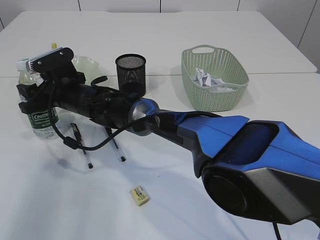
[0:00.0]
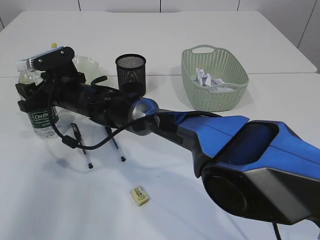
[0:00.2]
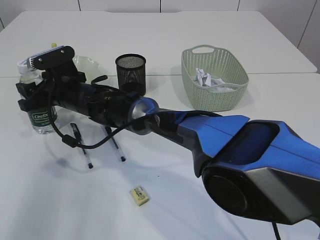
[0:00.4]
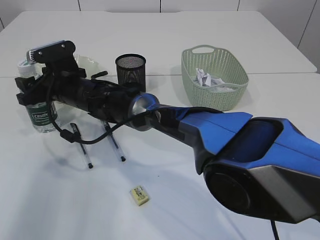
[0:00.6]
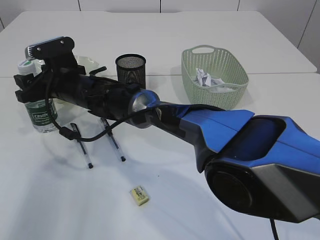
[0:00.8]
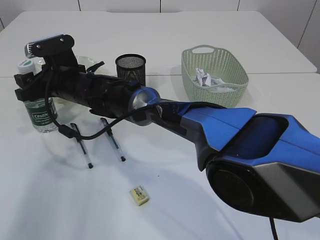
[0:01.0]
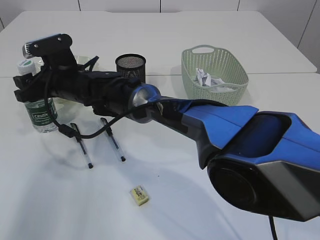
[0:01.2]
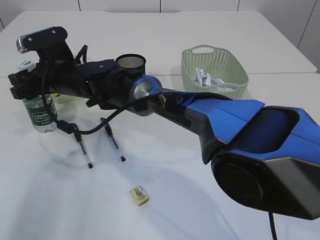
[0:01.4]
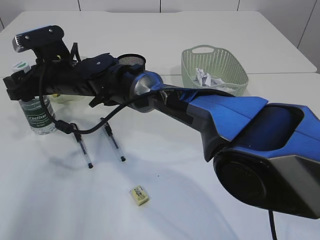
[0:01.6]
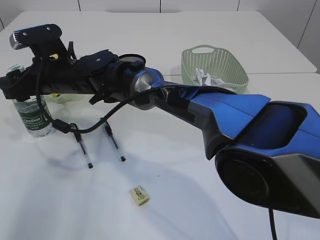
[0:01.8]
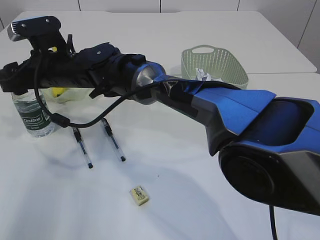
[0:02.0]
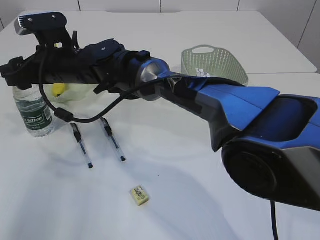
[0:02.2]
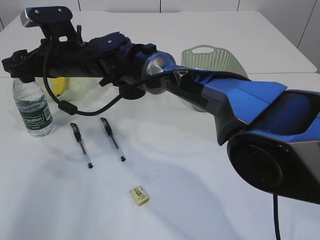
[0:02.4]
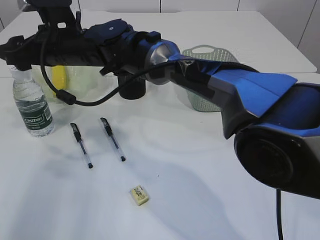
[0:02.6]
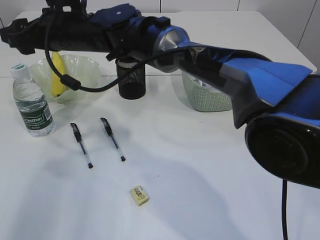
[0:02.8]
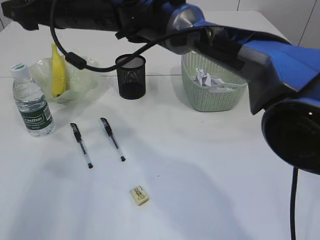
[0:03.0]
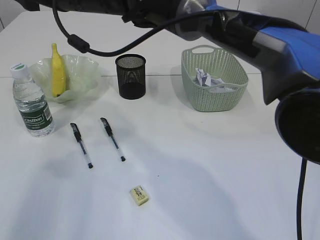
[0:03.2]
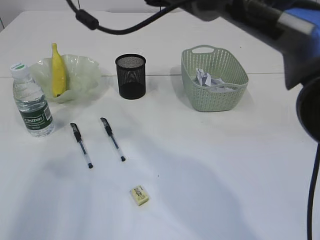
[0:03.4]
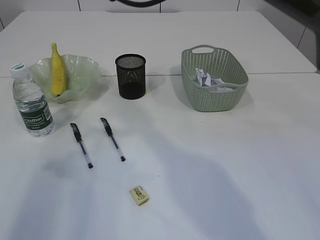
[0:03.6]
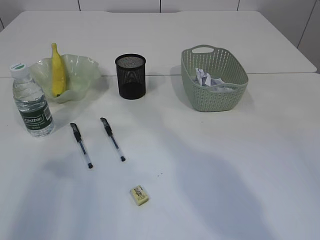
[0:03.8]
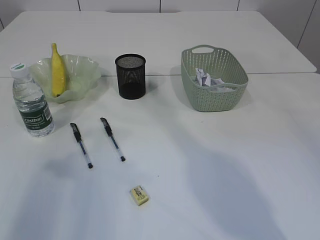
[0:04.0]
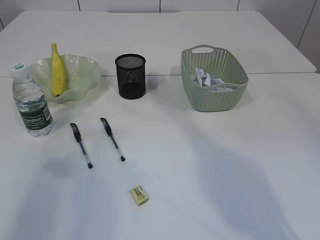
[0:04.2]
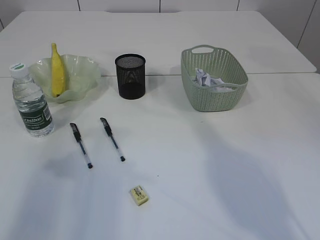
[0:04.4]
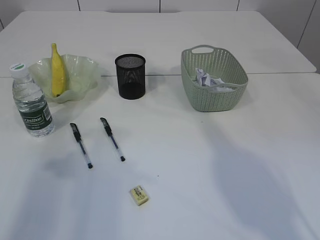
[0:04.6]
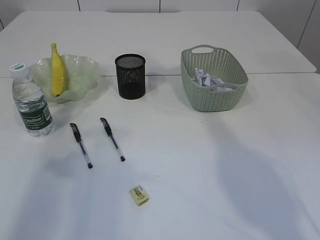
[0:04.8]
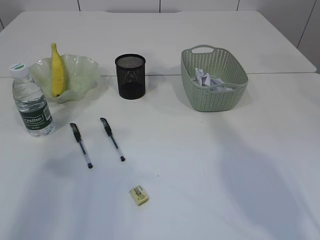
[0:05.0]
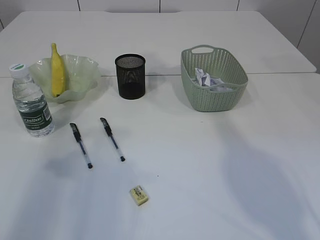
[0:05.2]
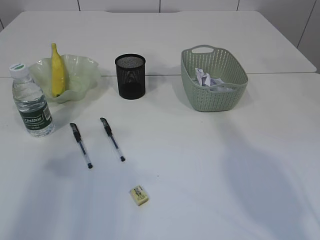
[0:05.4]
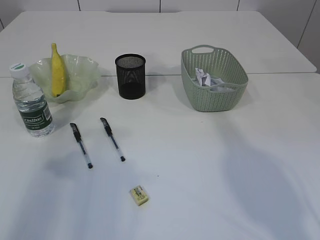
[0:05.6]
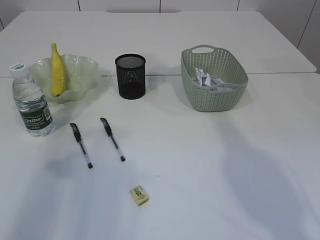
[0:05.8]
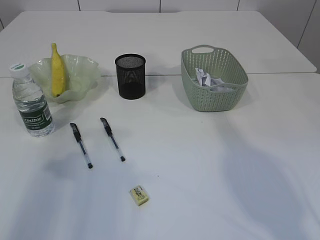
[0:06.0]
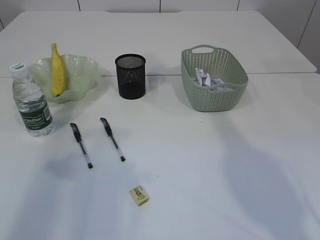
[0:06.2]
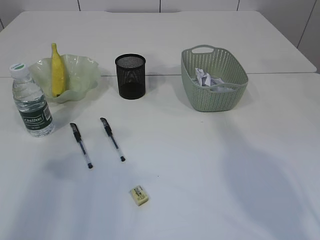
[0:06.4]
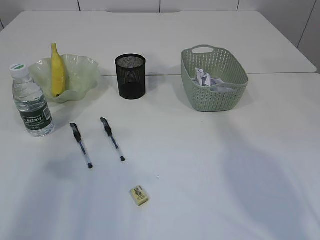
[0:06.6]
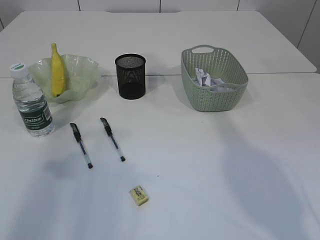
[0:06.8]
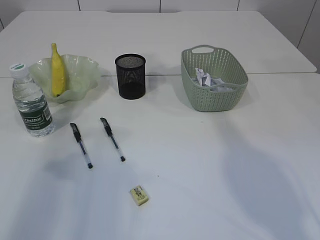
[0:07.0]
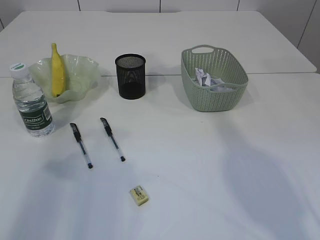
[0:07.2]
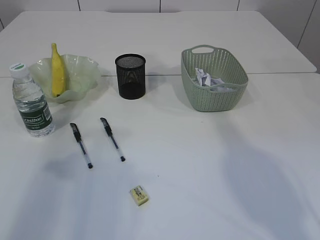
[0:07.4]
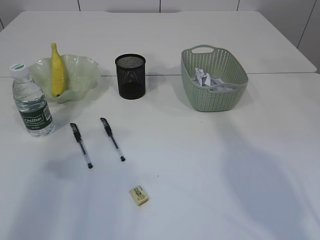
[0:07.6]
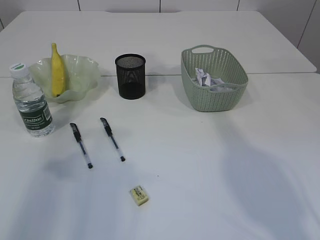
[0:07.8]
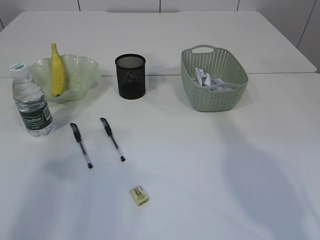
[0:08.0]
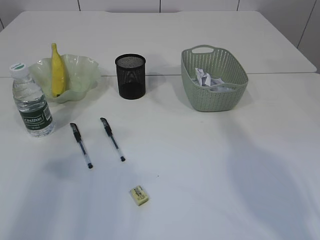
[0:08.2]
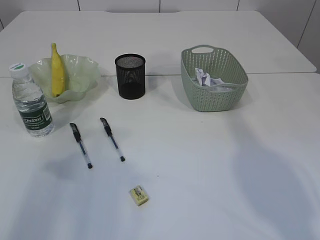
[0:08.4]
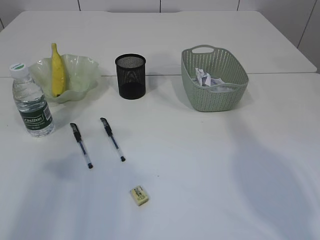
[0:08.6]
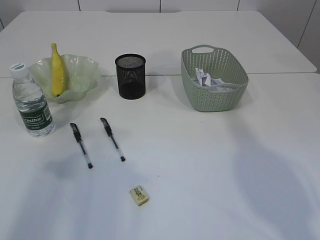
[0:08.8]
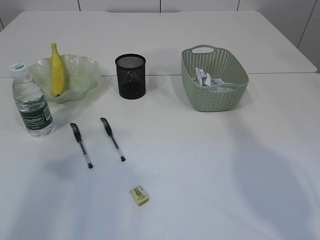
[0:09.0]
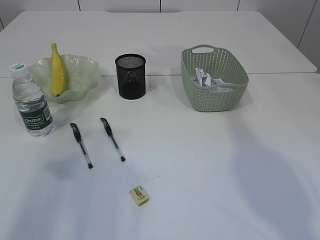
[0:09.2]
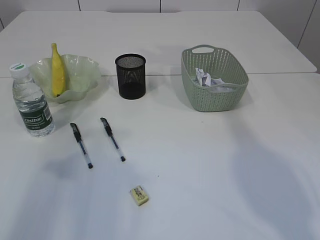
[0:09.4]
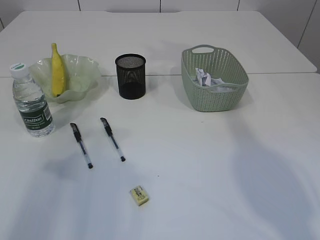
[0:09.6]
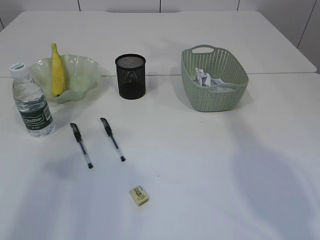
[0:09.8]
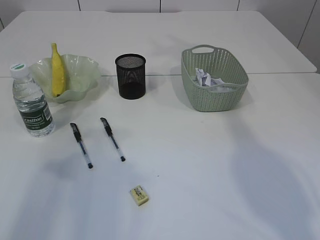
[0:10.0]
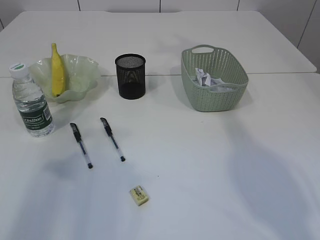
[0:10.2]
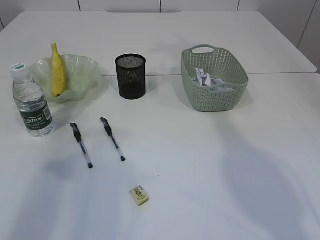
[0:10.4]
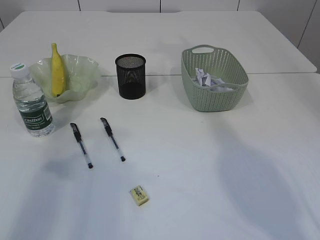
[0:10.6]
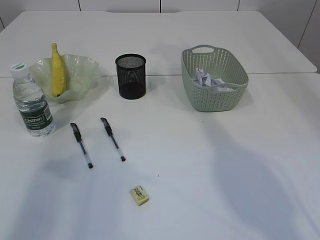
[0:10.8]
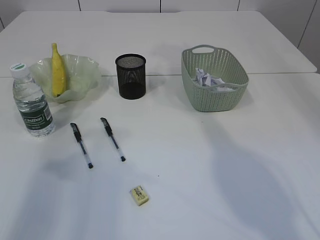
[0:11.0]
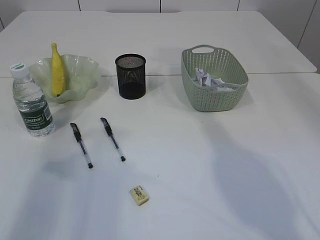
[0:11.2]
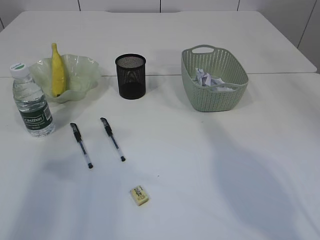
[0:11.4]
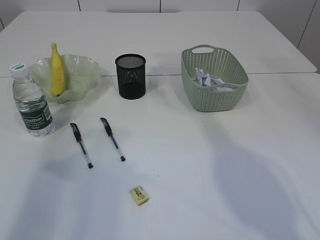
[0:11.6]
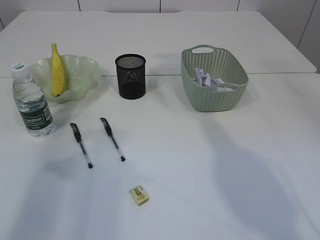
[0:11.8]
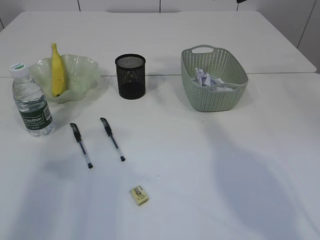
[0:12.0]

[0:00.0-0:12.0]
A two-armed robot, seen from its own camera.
Step, 0:00.0 to 0:02.8: Place the bottle.
0:01.6 to 0:03.0: The right gripper goes approximately 15 cm upward and to the right.
0:03.0 to 0:04.4: The right gripper shifts about 25 cm to the right and upward.
0:06.0 to 0:07.6: The two grippers keep their place.

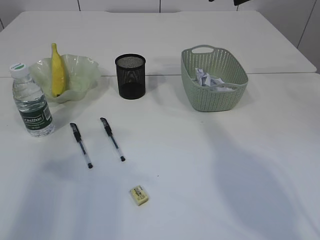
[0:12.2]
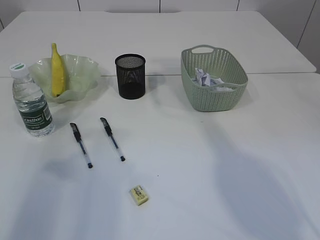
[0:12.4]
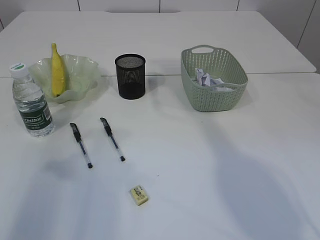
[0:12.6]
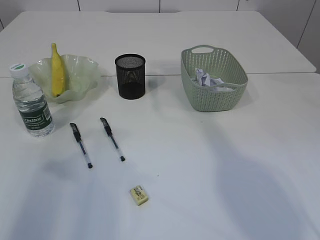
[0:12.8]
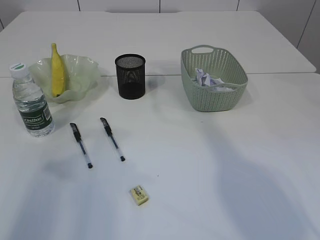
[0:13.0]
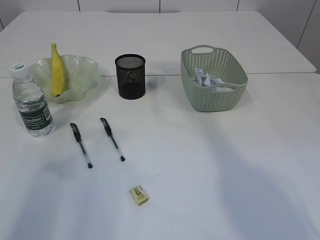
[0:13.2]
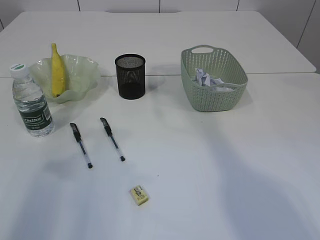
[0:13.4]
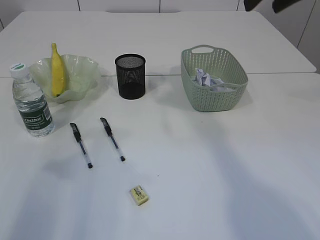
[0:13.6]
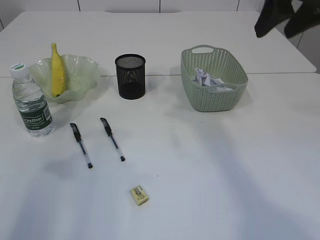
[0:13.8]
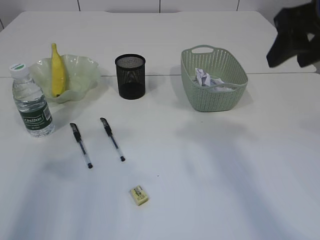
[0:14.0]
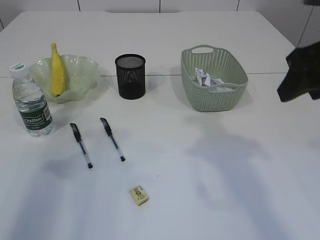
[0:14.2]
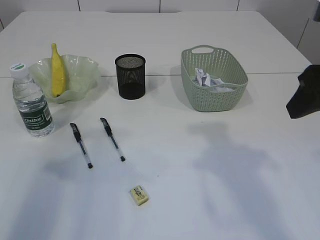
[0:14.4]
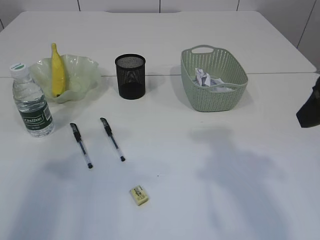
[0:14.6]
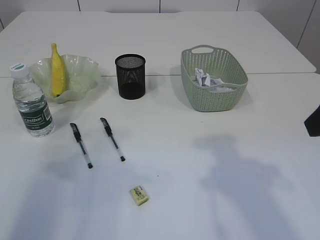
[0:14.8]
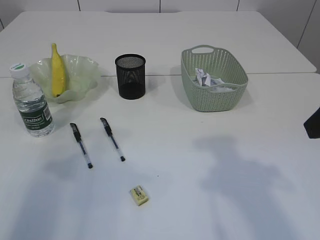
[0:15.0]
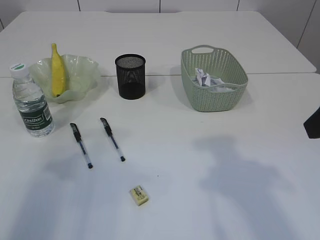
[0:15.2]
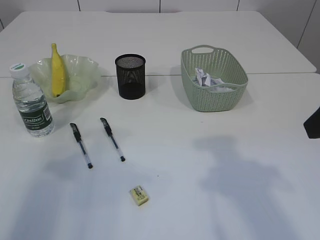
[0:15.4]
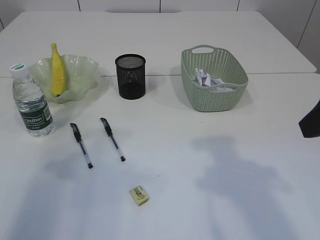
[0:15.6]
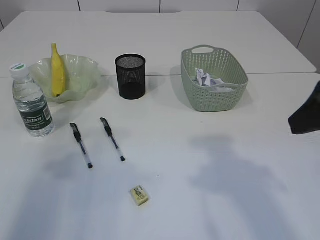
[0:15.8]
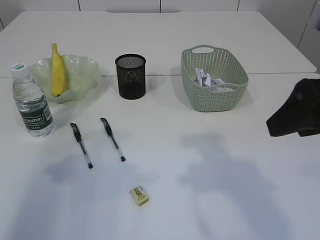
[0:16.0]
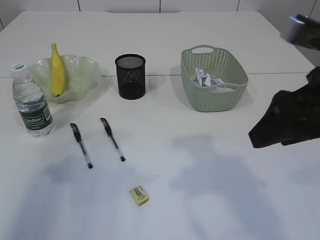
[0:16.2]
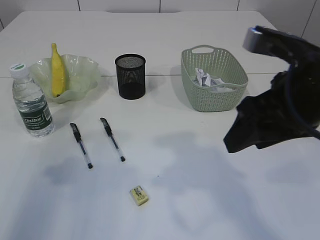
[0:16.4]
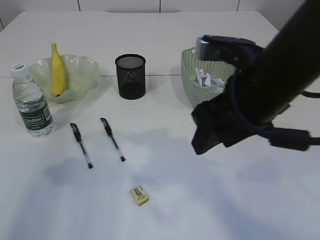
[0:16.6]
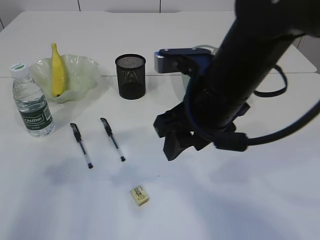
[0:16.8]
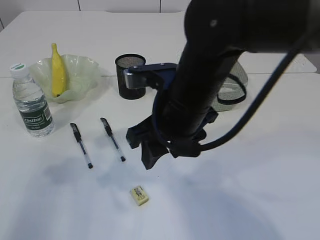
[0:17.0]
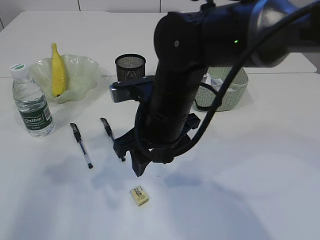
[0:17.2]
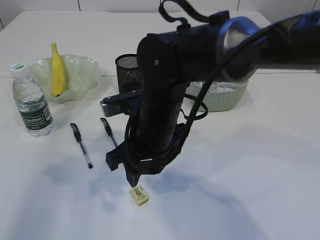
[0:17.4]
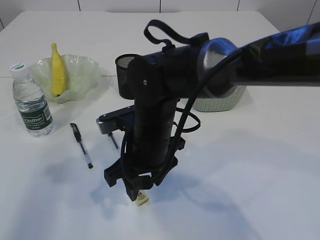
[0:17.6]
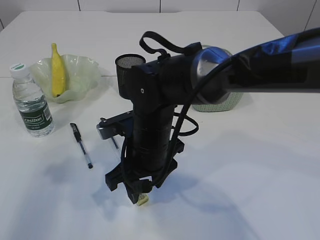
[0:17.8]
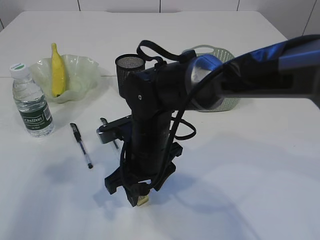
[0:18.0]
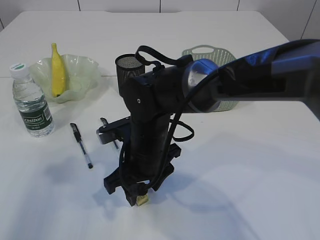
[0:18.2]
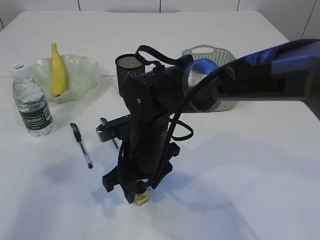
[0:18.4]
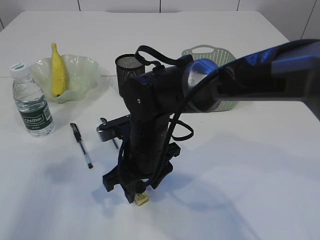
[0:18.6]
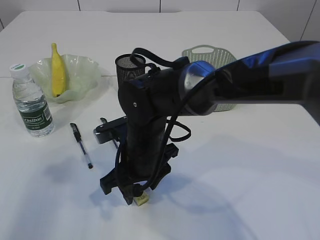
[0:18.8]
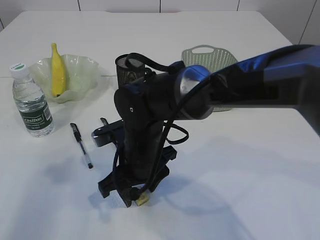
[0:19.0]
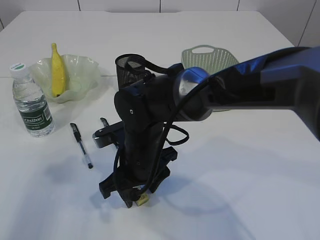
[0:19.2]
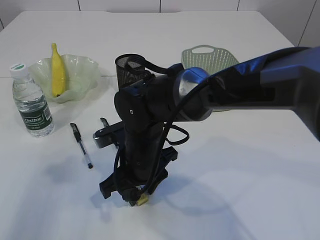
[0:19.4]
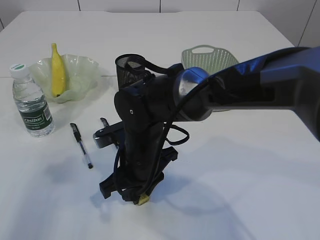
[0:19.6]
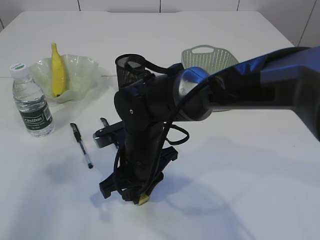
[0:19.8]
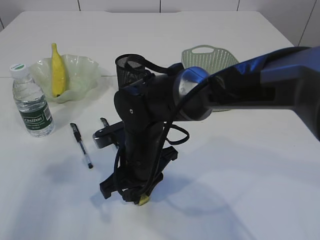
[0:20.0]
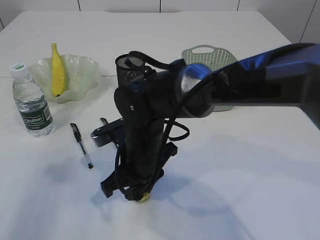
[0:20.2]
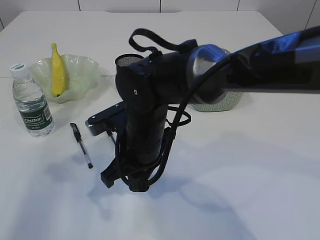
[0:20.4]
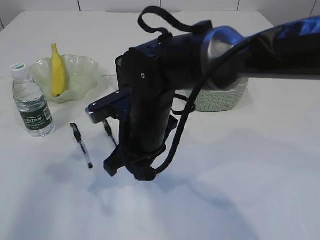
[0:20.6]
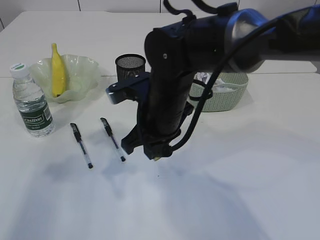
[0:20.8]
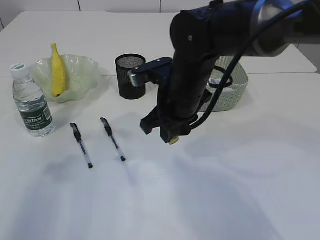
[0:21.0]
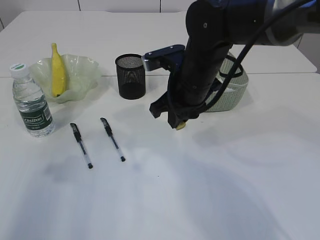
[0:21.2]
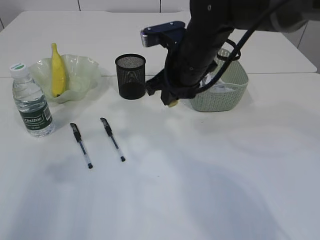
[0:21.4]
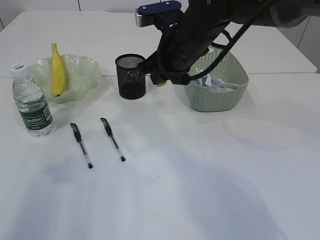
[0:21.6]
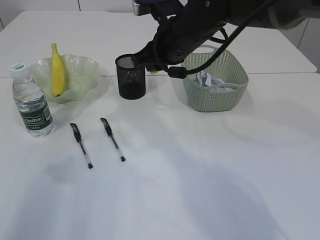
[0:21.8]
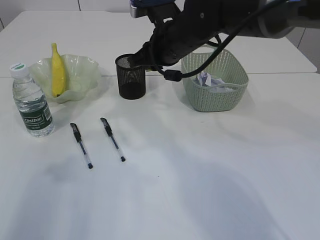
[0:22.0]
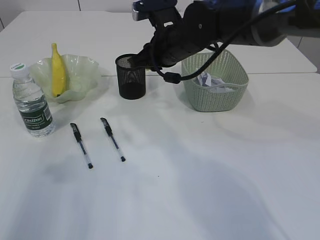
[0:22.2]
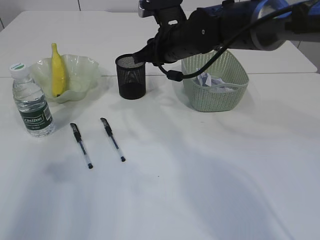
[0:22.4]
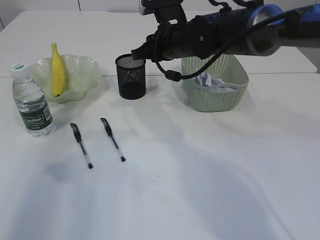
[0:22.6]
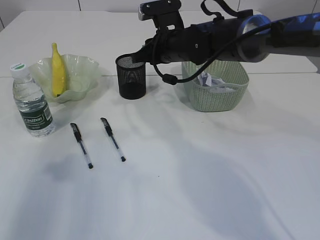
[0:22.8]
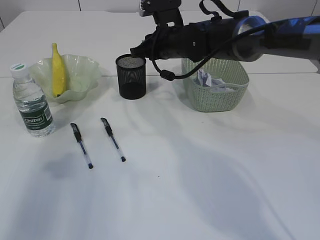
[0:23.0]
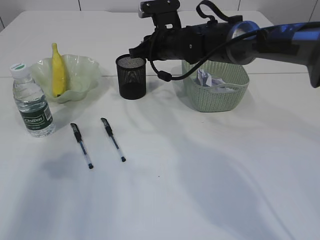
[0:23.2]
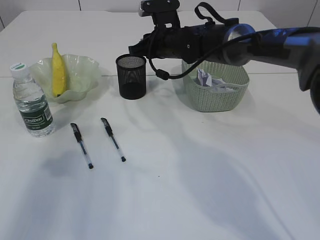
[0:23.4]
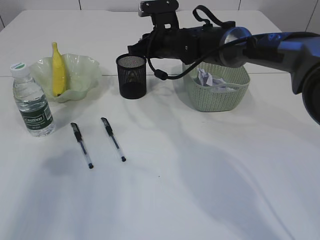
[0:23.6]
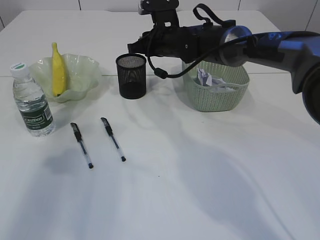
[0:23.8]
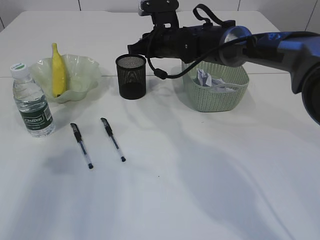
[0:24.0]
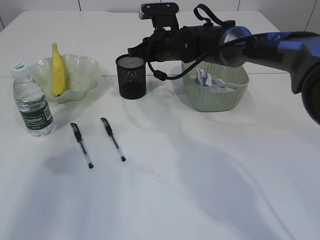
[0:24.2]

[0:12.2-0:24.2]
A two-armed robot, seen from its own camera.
Step, 0:12.2 to 0:20.6: Pick up the eraser.
0:12.2 to 0:13.8: The right gripper moves backward, about 15 cm.
0:13.8 to 0:15.2: The right gripper heads backward and downward, covering roughly 15 cm.
0:15.2 to 0:16.6: The left gripper opens; the right gripper is displaced to the left and forward by some 15 cm.
0:16.6 to 0:18.2: The right gripper moves downward and to the left, approximately 20 cm.
0:18.2 to 0:19.8: The right gripper closes its fingers.
0:19.8 to 0:21.2: The right gripper moves upward, to the right and forward, roughly 15 cm.
0:21.2 to 0:22.6: The right gripper moves forward, some 10 cm.
0:22.6 to 0:24.2: The right gripper shifts approximately 5 cm forward.
